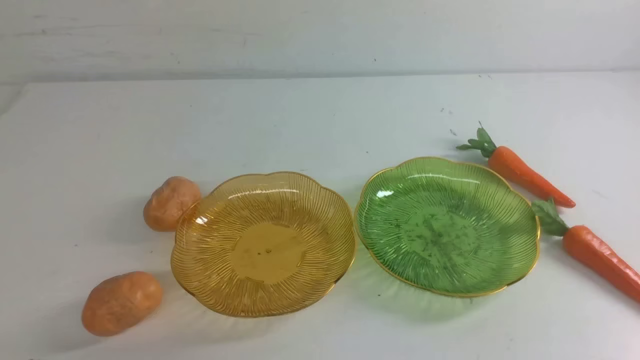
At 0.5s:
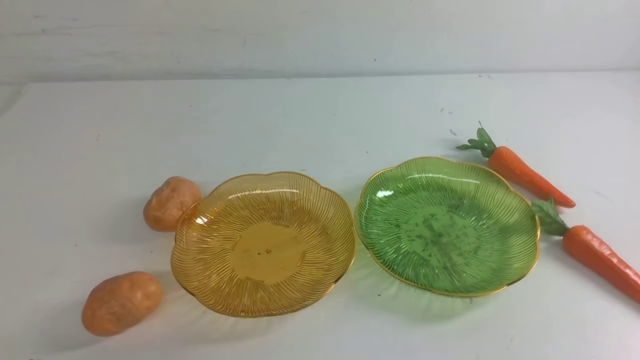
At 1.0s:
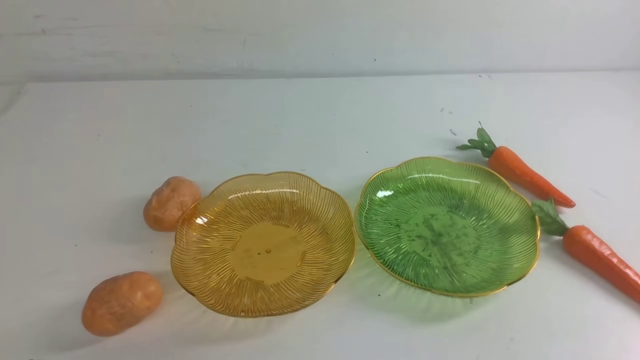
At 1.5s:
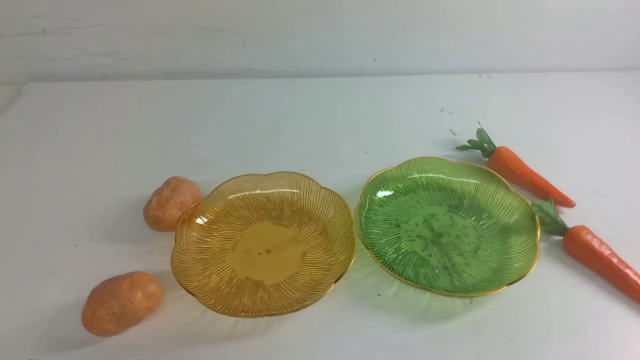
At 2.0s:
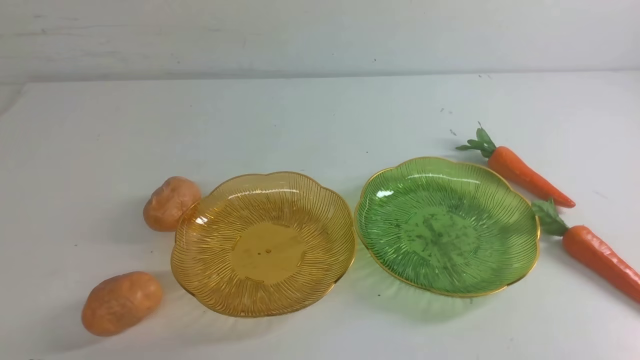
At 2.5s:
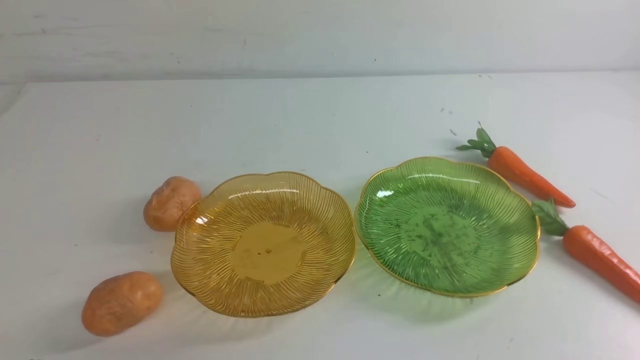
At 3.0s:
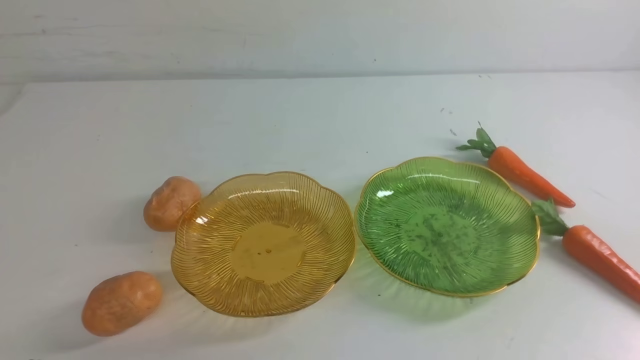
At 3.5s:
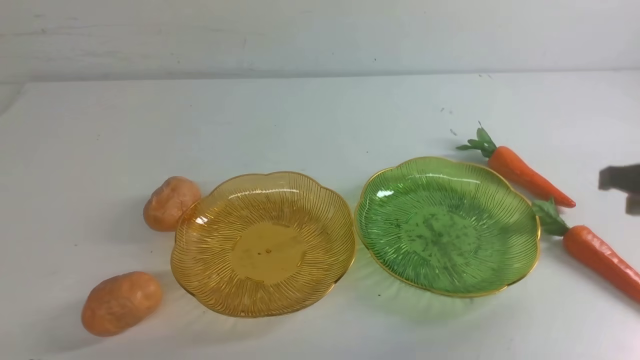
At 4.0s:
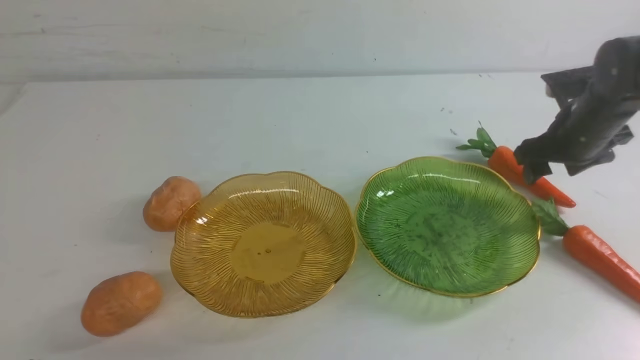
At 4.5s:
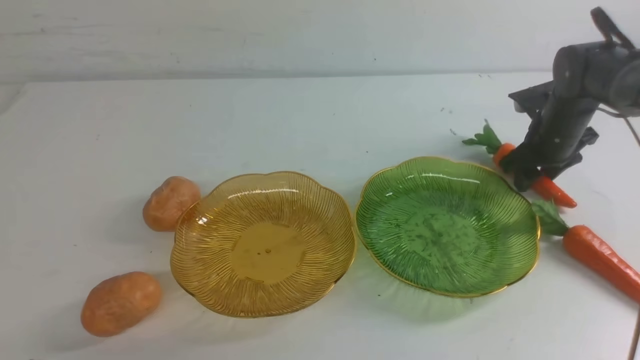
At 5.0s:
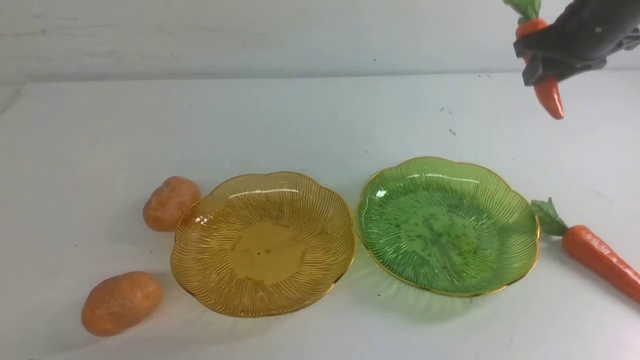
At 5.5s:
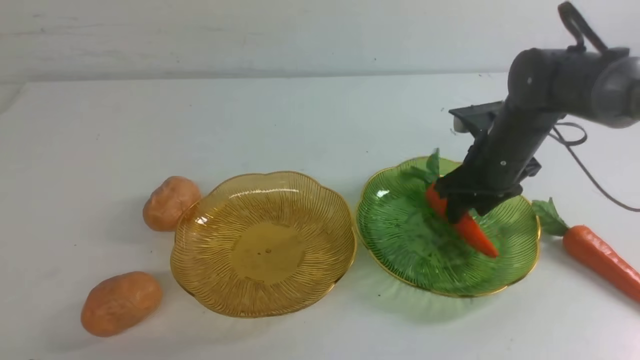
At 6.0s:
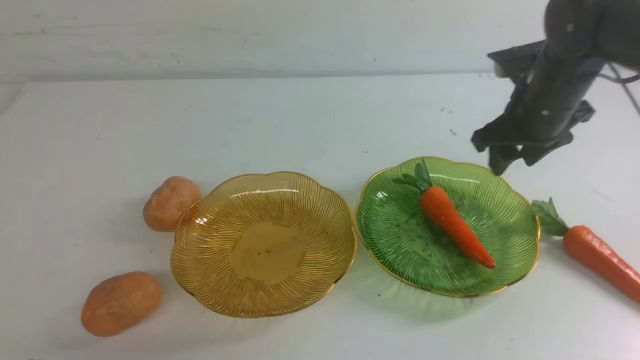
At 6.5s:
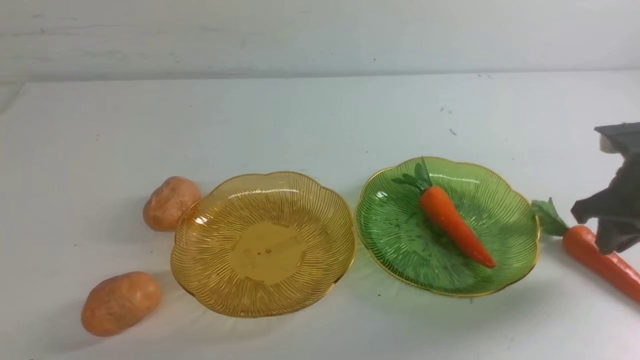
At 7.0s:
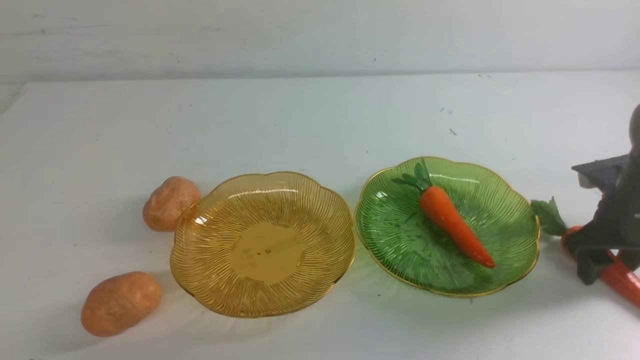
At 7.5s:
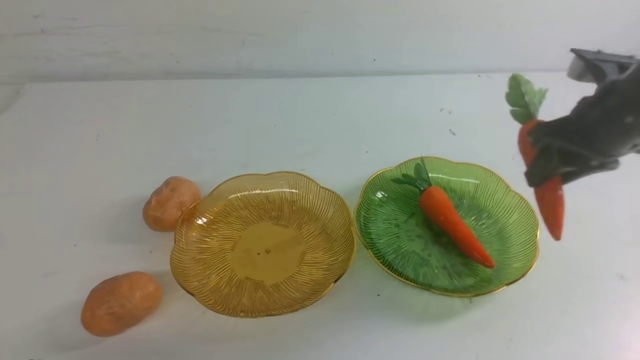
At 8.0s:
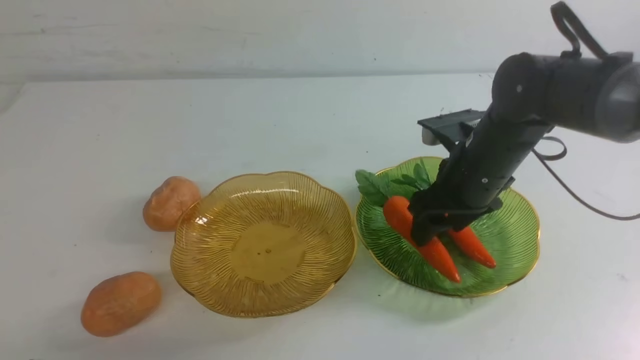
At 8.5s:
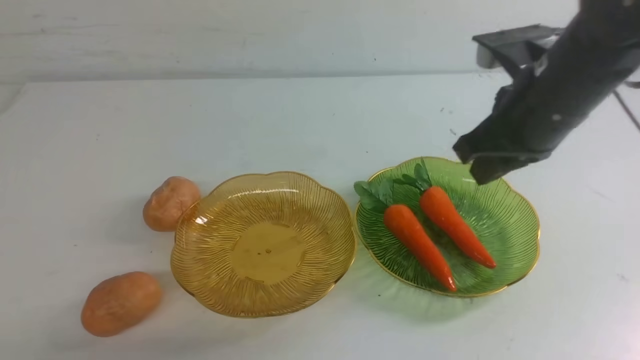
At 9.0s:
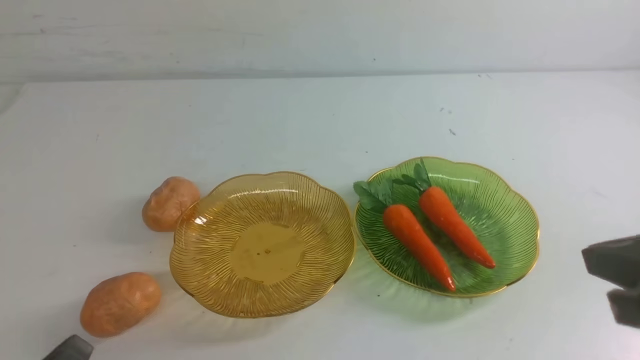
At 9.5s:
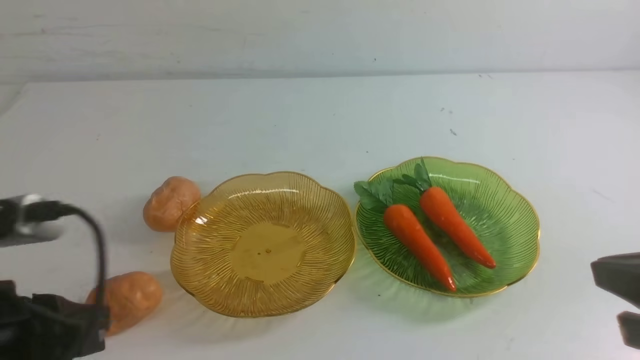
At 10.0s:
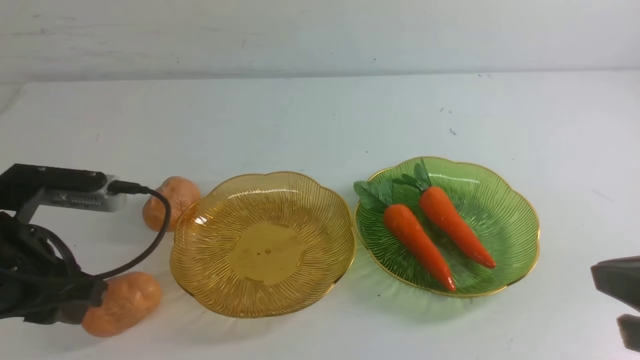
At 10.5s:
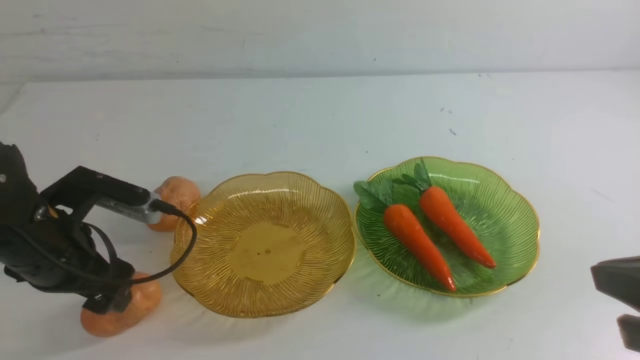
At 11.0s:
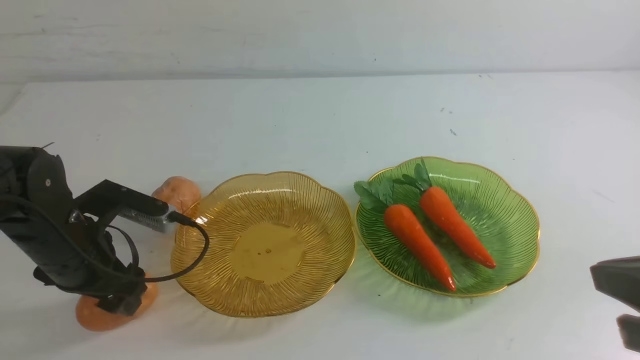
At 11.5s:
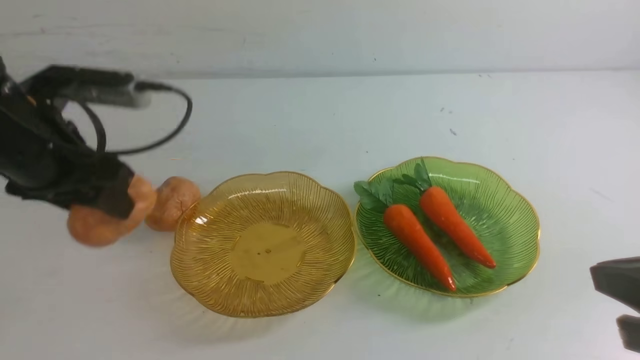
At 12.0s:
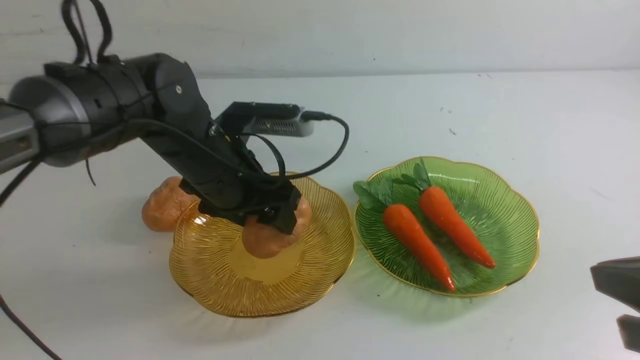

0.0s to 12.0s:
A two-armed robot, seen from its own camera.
Step, 0.0s to 8.0s: use the right arm to grab a carrot and put it into the right plate.
2.0s to 4.0s: The right gripper moves forward, some 40 cm, and opens its fingers.
4.0s to 6.0s: The right gripper moves upward and backward, roughly 10 cm, and closes.
6.0s to 8.0s: The right gripper shifts roughly 10 cm to the left, and opens up.
8.0s to 10.0s: The right gripper goes roughly 25 cm backward, and closes up; the left gripper moves forward and upward, roughly 20 cm, and opens up.
10.0s to 12.0s: The left gripper shifts approximately 20 cm forward and to the right, and opens.

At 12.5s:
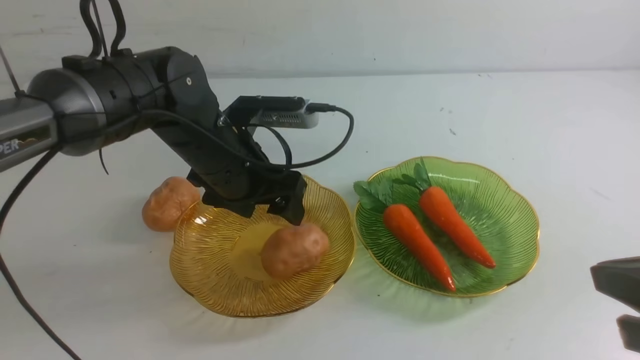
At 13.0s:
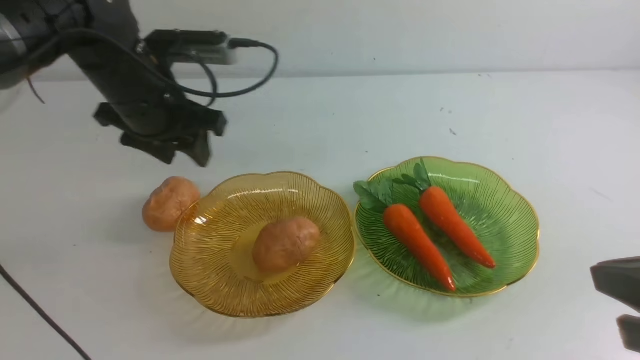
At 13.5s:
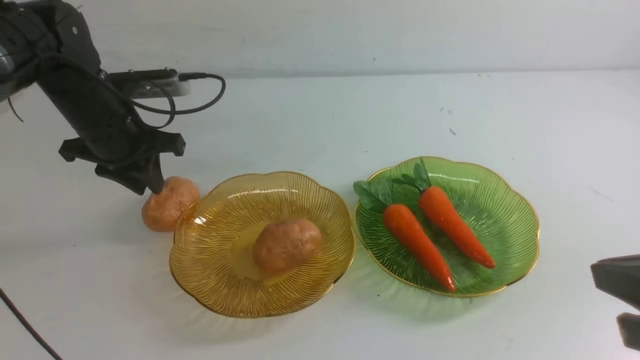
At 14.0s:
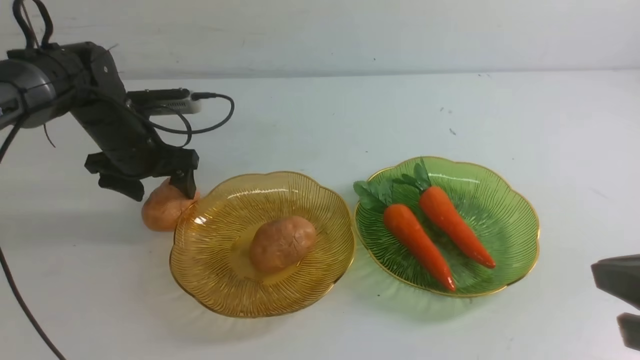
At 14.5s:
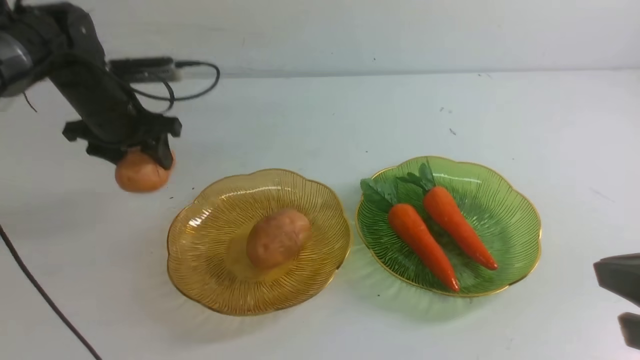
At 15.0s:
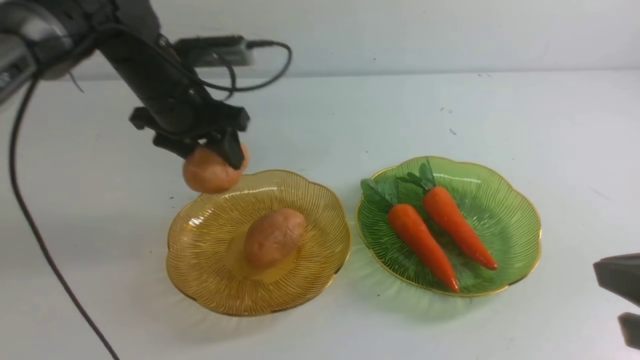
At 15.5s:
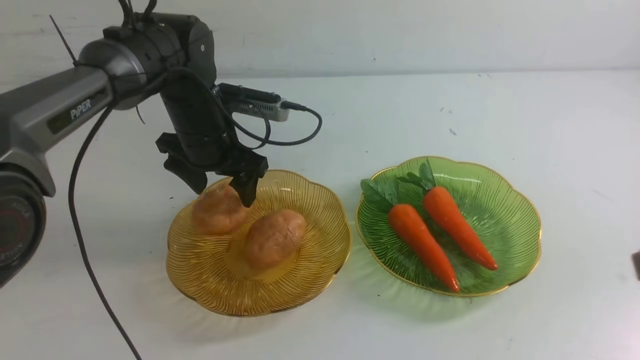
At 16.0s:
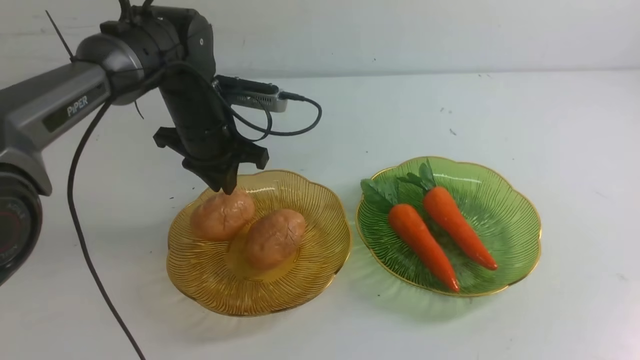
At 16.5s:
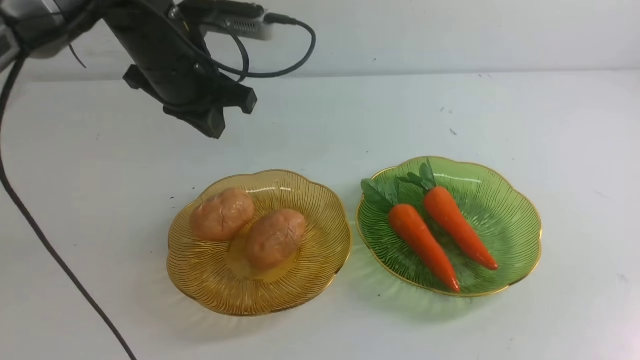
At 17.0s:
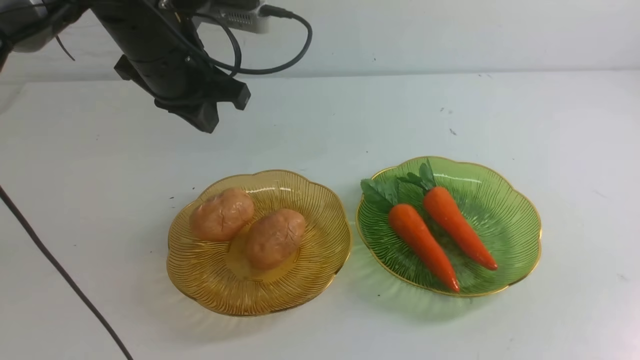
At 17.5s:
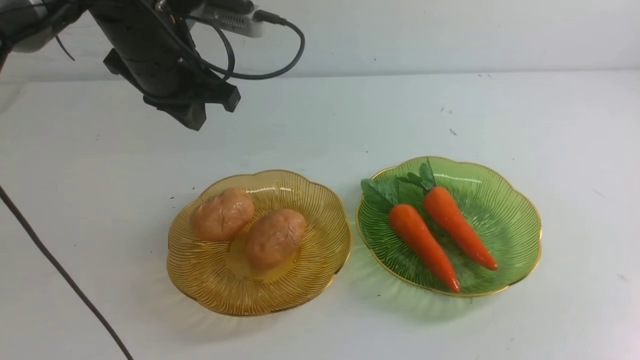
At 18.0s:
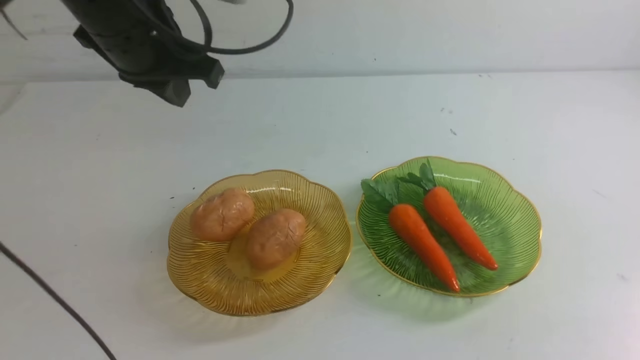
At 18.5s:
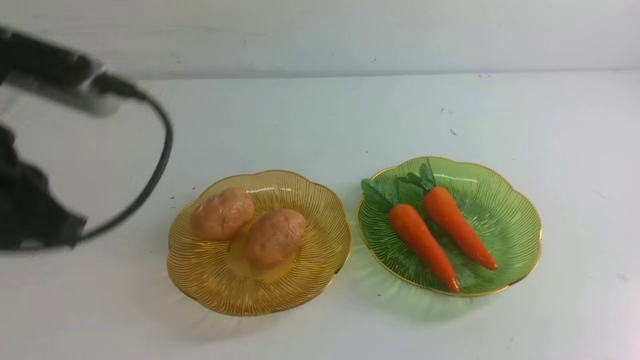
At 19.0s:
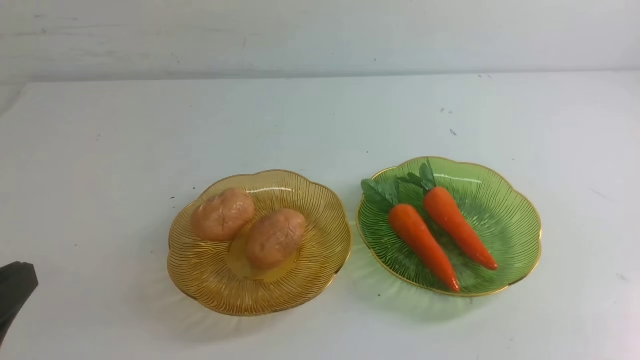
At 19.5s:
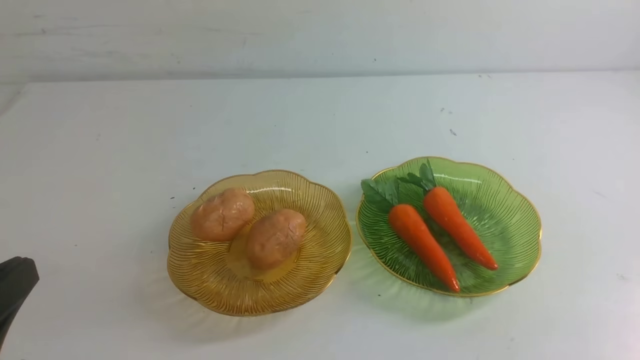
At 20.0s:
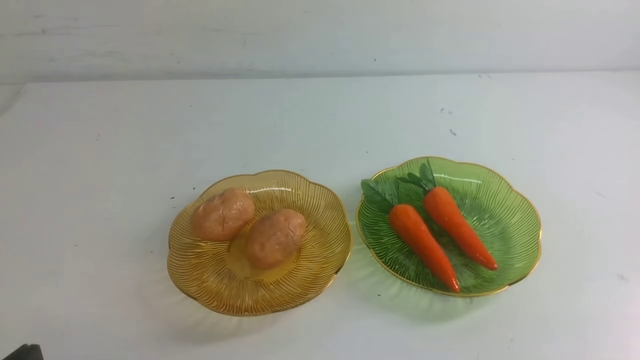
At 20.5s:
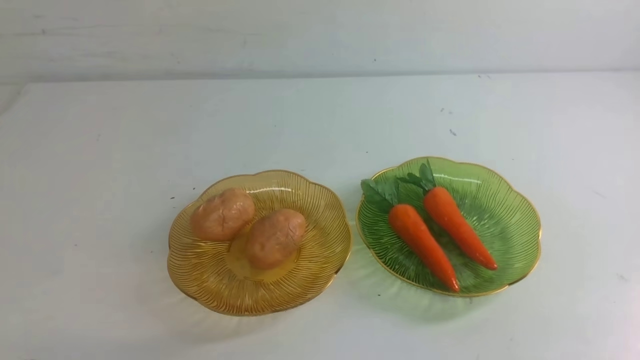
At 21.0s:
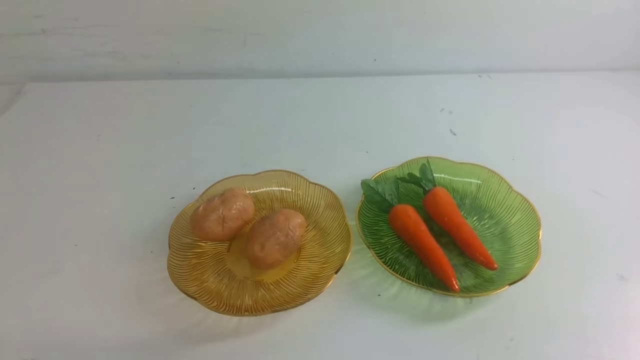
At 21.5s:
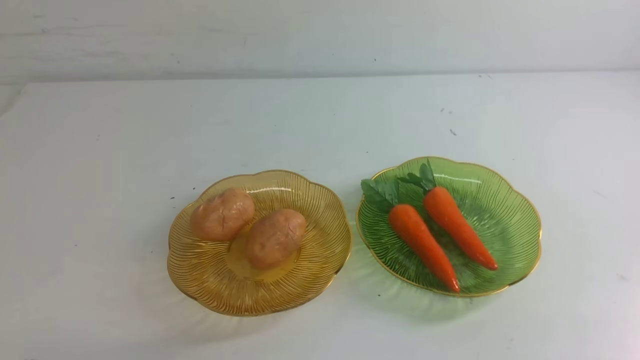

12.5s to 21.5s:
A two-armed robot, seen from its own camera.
Step, 12.5s to 15.5s: Grab a potato with your left arm and put it on the left plate.
12.5s to 14.5s: The left gripper goes about 10 cm to the left and forward, and closes, then opens again.
14.5s to 17.0s: The left gripper shifts approximately 10 cm to the right and upward, and closes up; the right gripper is displaced downward and backward by approximately 15 cm.
17.0s to 19.5s: The left gripper shifts some 35 cm backward and downward.
